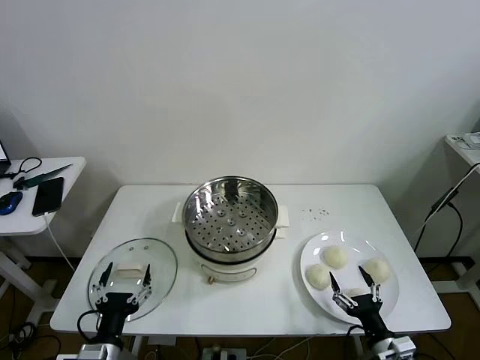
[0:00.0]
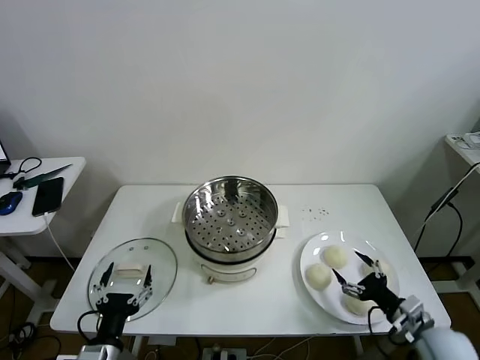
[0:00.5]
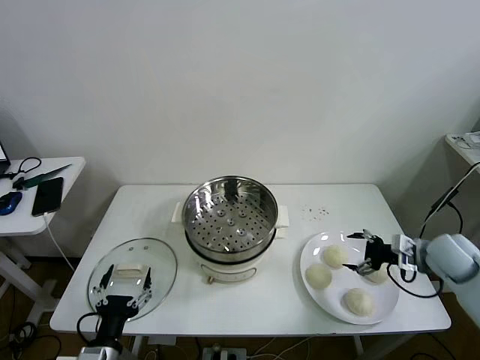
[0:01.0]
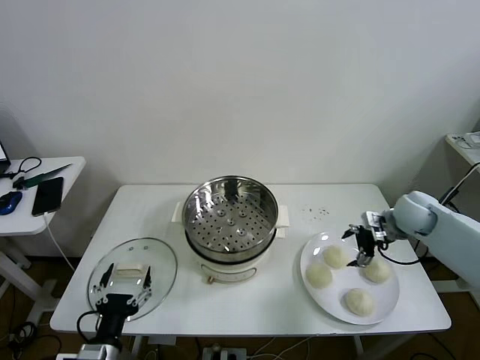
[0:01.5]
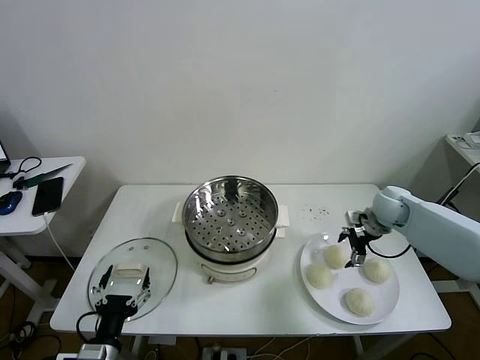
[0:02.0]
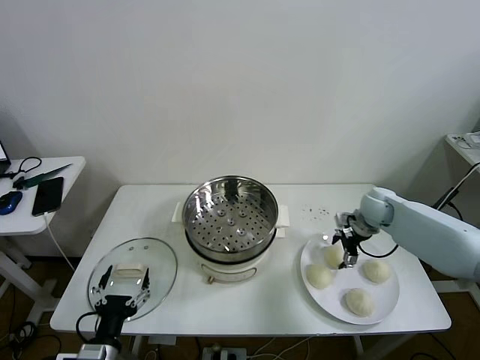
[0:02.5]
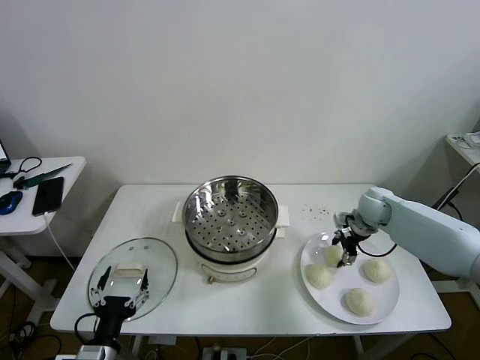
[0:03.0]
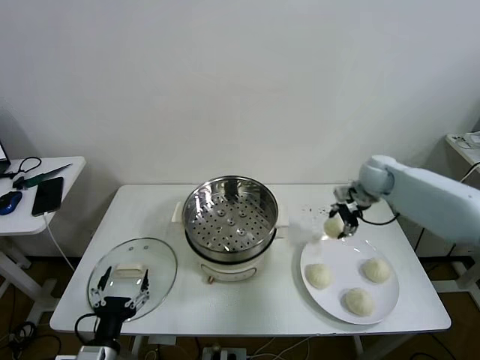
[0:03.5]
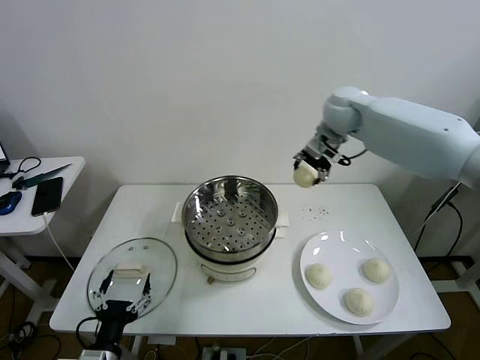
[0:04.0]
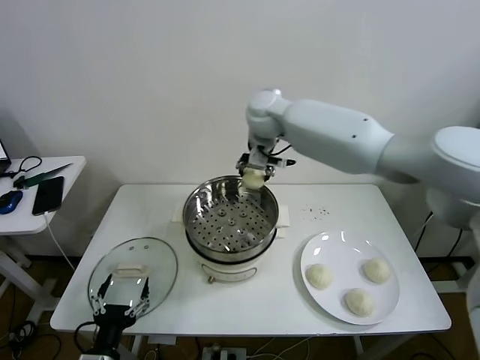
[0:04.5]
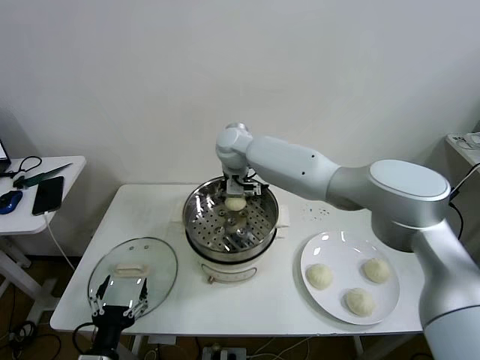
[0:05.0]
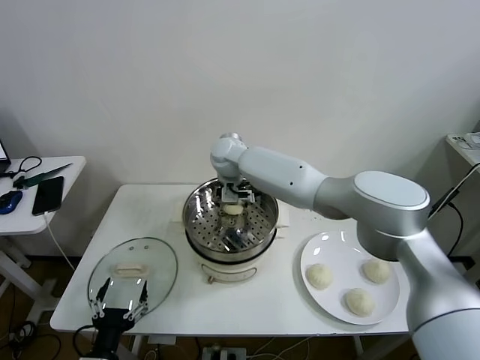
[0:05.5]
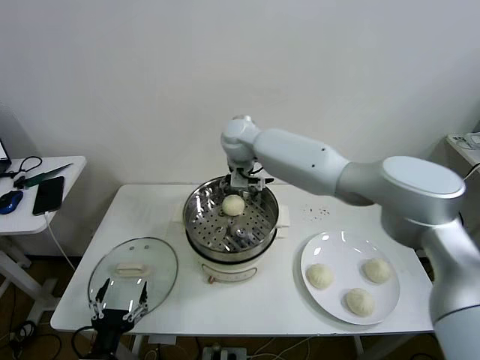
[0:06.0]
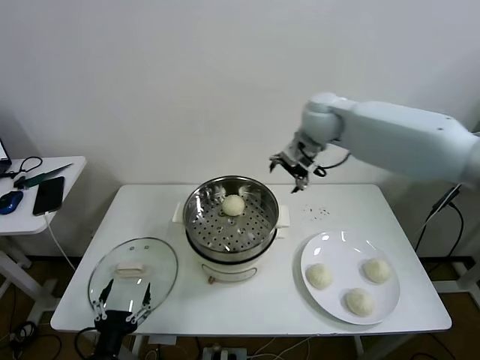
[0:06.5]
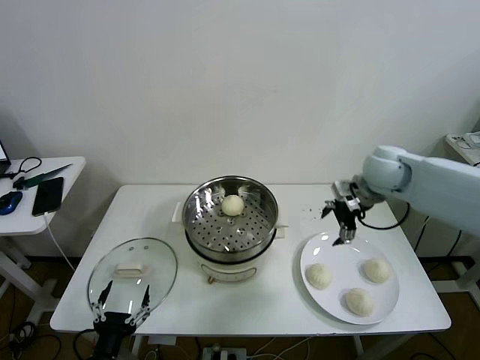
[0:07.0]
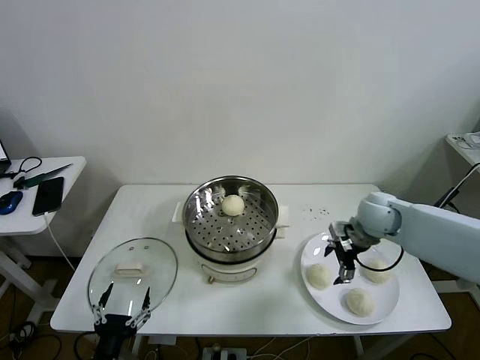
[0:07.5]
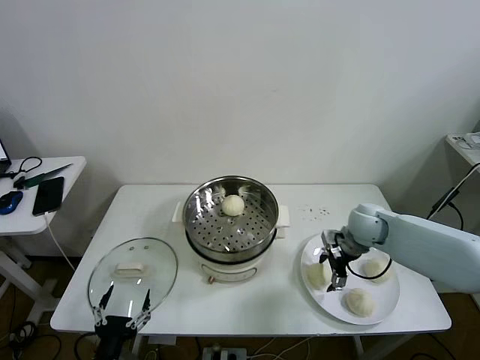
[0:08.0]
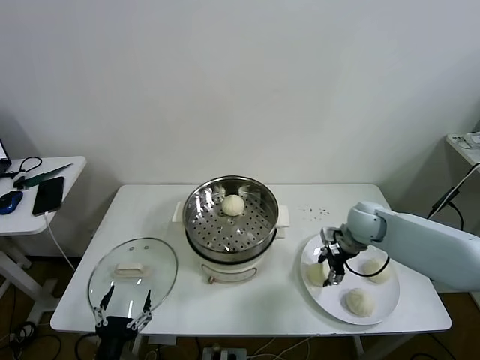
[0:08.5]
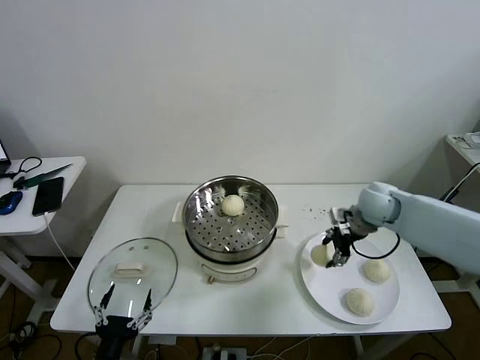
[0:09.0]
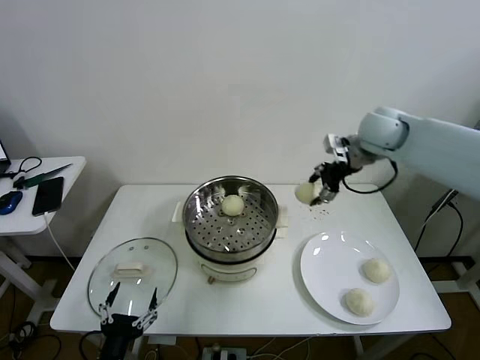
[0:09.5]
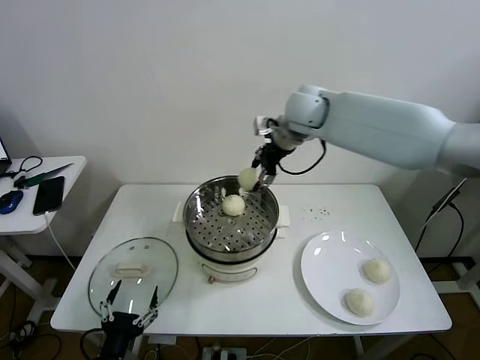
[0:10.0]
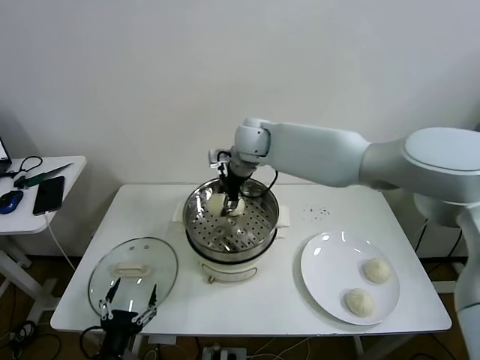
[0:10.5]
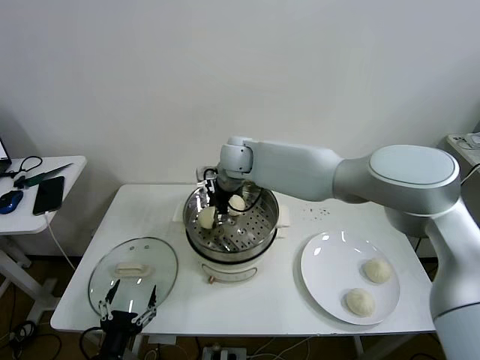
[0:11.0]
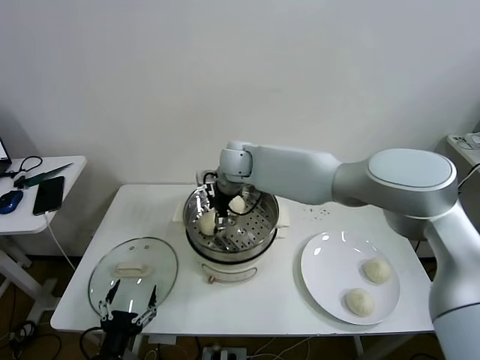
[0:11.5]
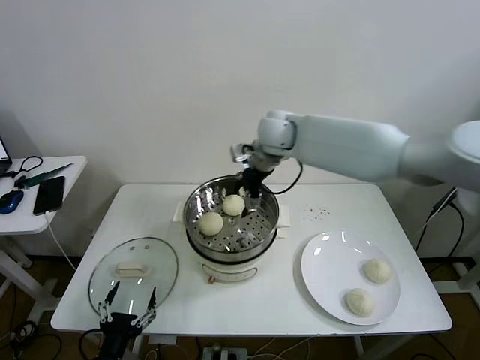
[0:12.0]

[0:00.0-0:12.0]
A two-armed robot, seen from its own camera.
Task of the whole recording: take steamed baozi put them in steamer then cover it.
Step, 0:00.0 to 0:03.0: Grasp the baozi in the plate with right gripper.
Step, 0:03.5 to 0:05.5: Place the baozi on the steamer with right gripper.
Step, 0:06.0 to 0:08.5: Grasp the baozi in the plate with right gripper.
Step, 0:09.0 to 0:11.5: Place the baozi on the steamer with right gripper.
0:02.0 to 0:04.0: The right gripper shifts approximately 30 cm upward and to the left, and closes up.
0:04.0 to 0:06.0: The right gripper goes roughly 20 cm to the left, and opens its fingers.
0:06.0 to 0:08.0: The right gripper heads to the right and downward, covering roughly 35 cm.
0:08.0 to 0:10.0: The right gripper travels upward, to the left and forward by about 30 cm, and closes up.
0:10.0 to 0:12.0: The right gripper shifts about 10 cm to the left and downward, and opens its fingers.

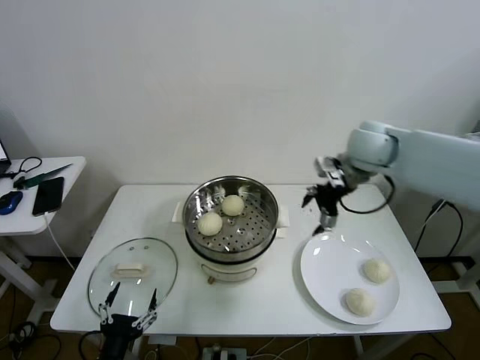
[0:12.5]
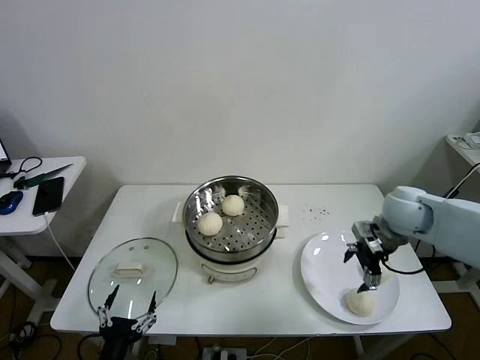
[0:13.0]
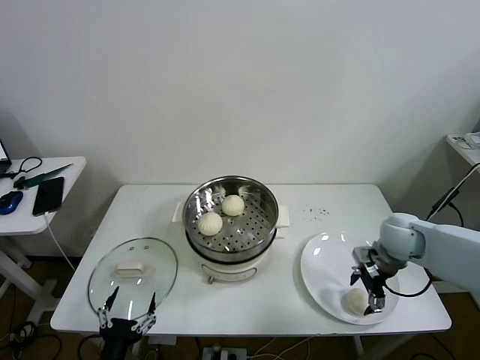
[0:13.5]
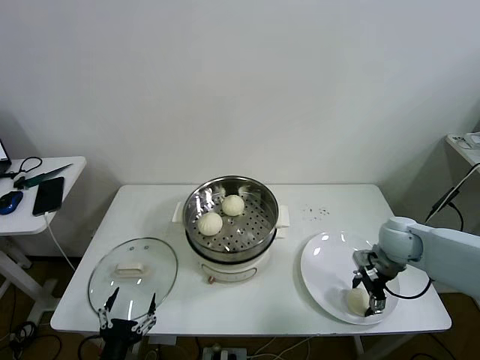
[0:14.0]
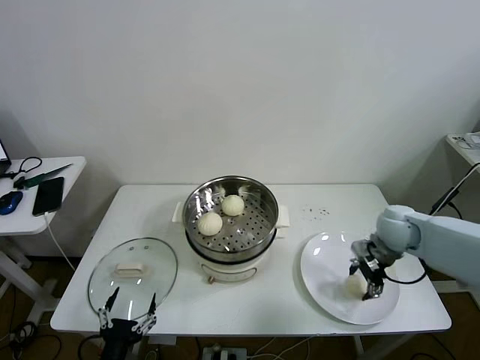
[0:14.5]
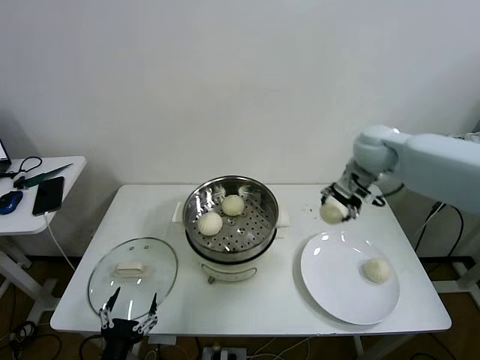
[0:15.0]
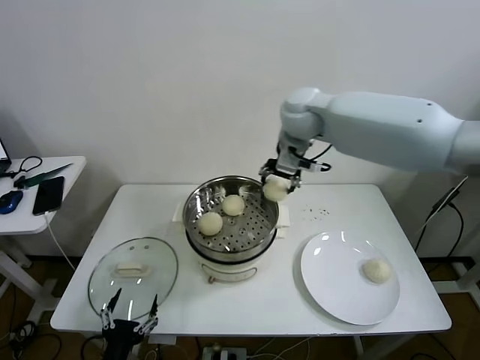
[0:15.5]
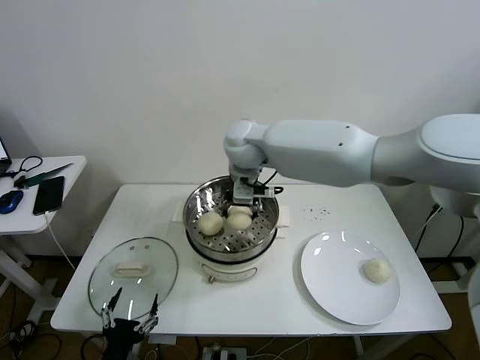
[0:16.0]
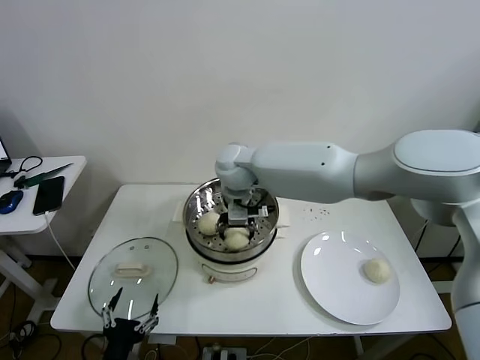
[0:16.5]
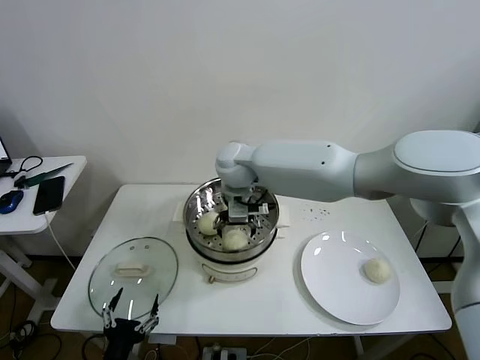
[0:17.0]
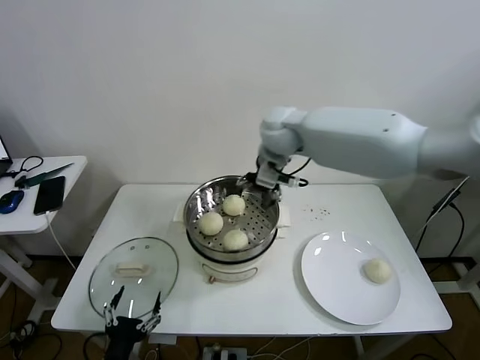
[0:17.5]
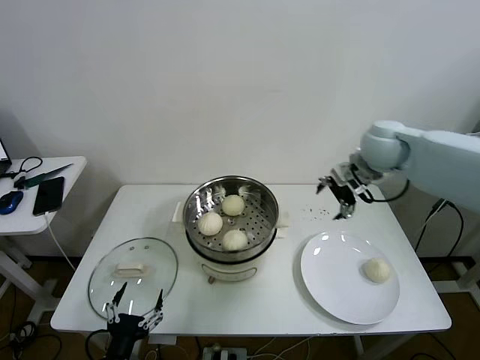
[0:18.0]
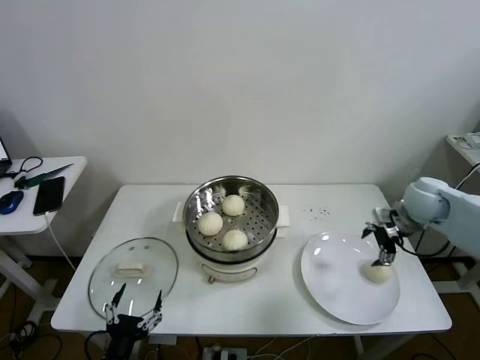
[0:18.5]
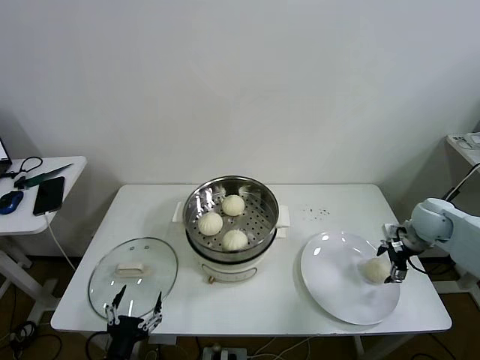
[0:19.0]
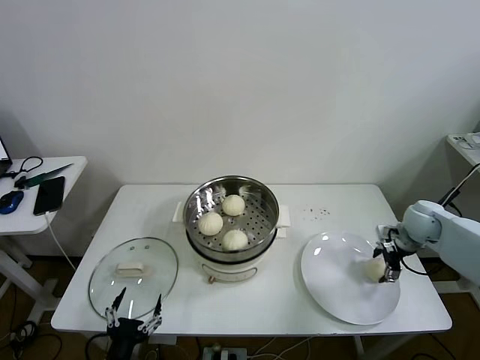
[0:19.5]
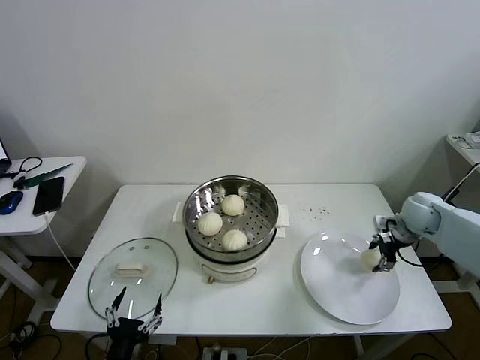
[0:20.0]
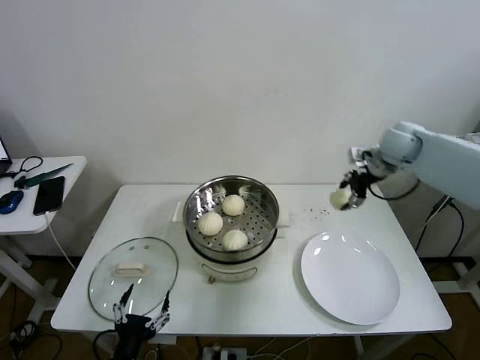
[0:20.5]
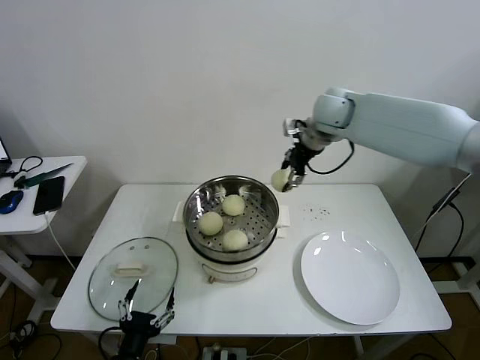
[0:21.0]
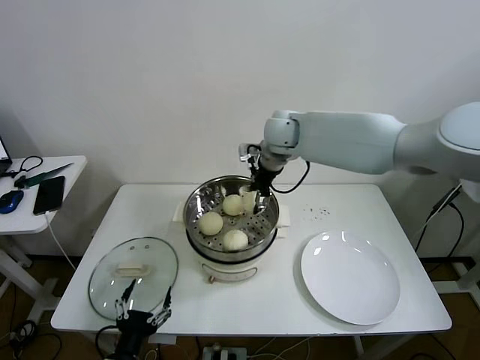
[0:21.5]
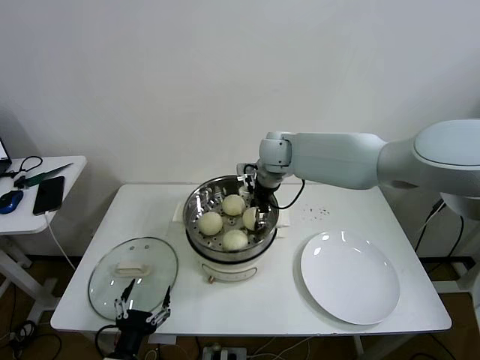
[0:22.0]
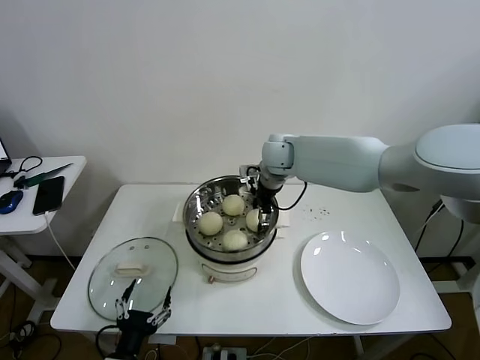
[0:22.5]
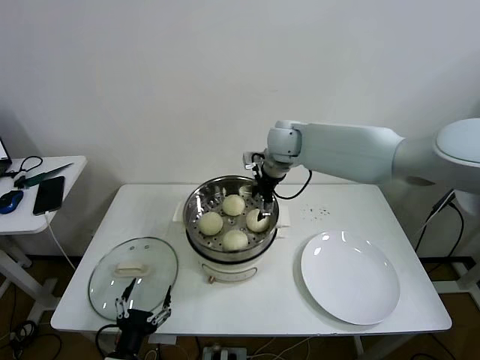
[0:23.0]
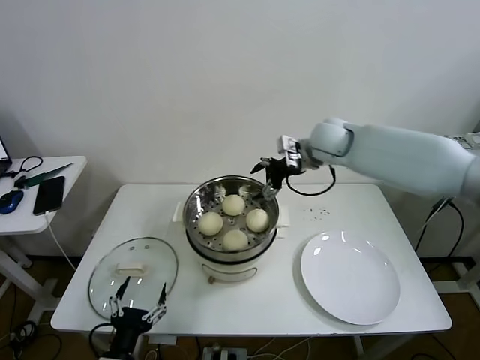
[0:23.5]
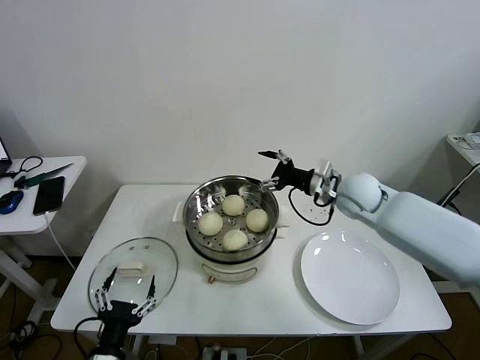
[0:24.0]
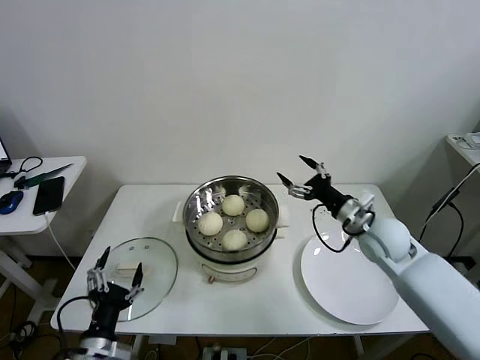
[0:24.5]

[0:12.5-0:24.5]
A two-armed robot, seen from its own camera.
Task of the whole recording: take steamed baozi put them in steamer then cover it.
Step, 0:12.5 to 0:14.0: Grasp the baozi in the plate with right gripper.
Step, 0:14.5 to 0:16.5: Place the baozi on the steamer with right gripper.
Step, 0:17.0 to 0:19.5: Grasp the baozi in the plate with right gripper.
Step, 0:20.0 to 0:22.5: Place the baozi on the steamer with right gripper.
0:12.5 to 0:14.5: The right gripper travels downward and to the right by roughly 20 cm, and closes.
0:14.5 to 0:16.5: The right gripper goes roughly 35 cm to the left.
0:16.5 to 0:18.5: The right gripper travels to the right by about 40 cm, and opens.
0:18.5 to 0:20.5: The right gripper moves forward and upward, about 10 cm, and closes up.
0:20.5 to 0:22.5: The right gripper travels to the left by some 30 cm, and opens.
0:22.5 to 0:24.5: The left gripper is displaced upward by about 5 cm; the right gripper moves to the right, backward and downward, approximately 30 cm, and opens.

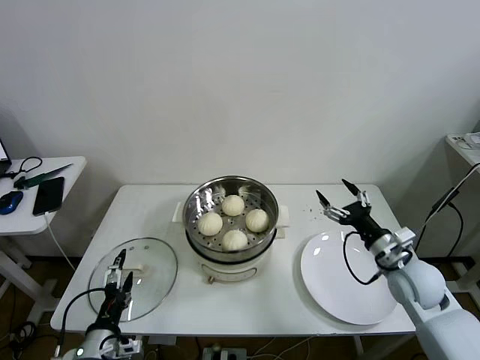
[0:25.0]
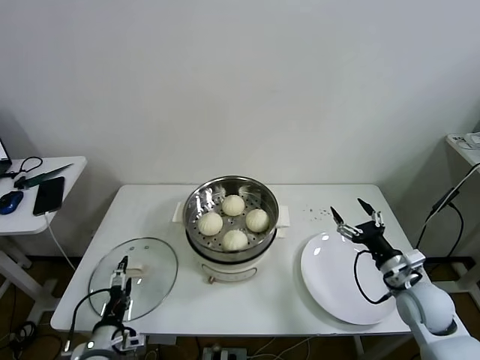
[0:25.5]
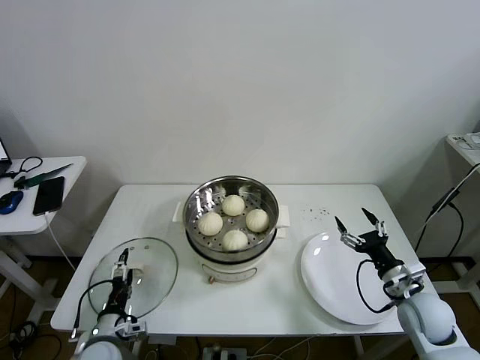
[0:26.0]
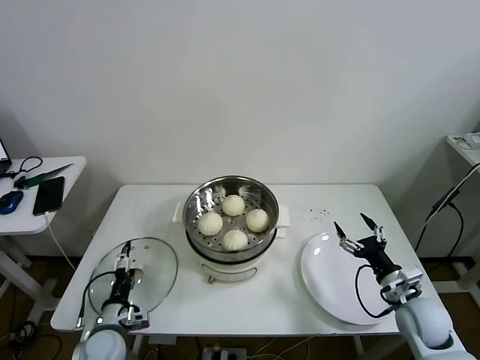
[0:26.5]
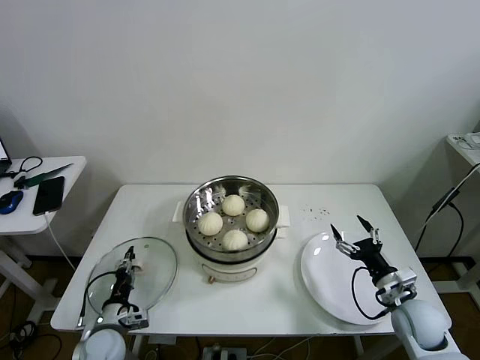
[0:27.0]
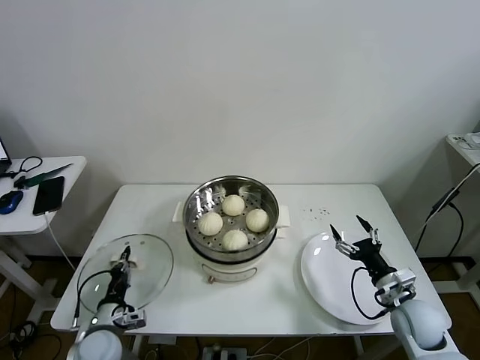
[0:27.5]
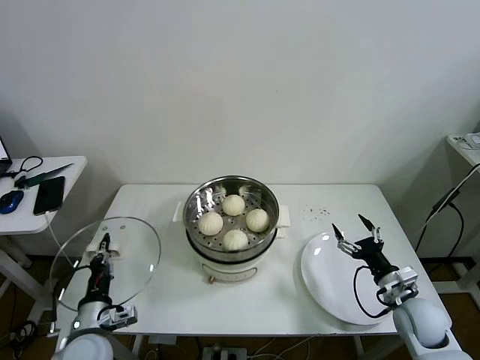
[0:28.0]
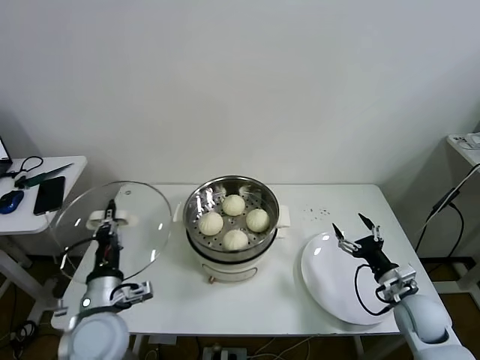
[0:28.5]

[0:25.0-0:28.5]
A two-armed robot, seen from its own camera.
Task of the whole recording: take steamed baozi put them in steamer then cover it.
Step, 0:25.0 to 0:27.0: Grasp the pot lid with left gripper.
0:25.0 to 0:27.0: The left gripper travels downward and forward by approximately 15 cm, and closes up. The right gripper heads downward and backward, covering approximately 10 cm.
0:27.0 to 0:28.5: The left gripper goes some 15 cm upward, and closes its fingers.
